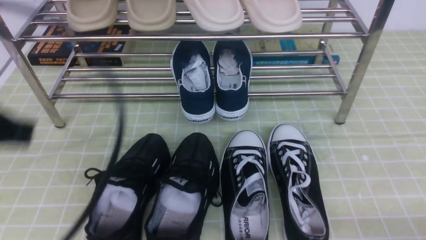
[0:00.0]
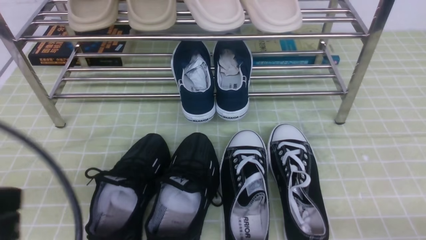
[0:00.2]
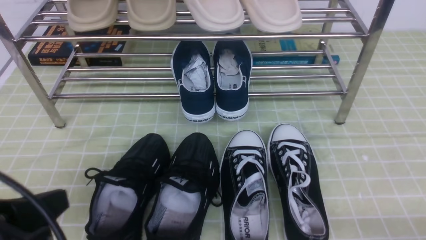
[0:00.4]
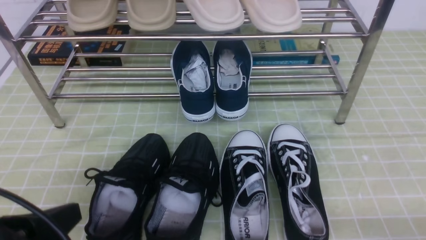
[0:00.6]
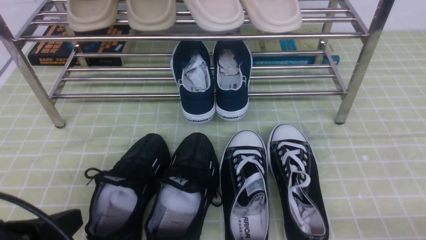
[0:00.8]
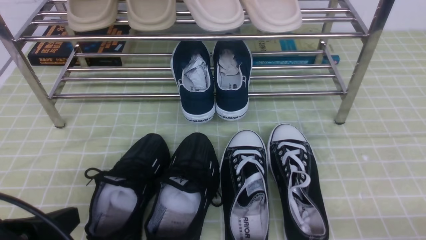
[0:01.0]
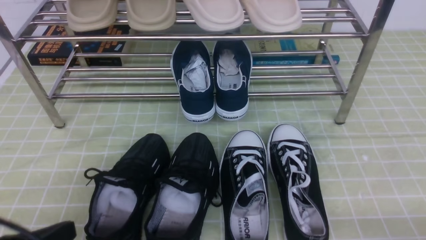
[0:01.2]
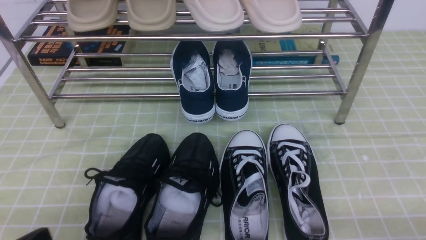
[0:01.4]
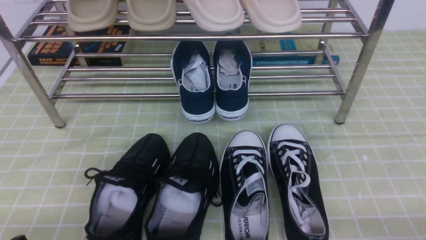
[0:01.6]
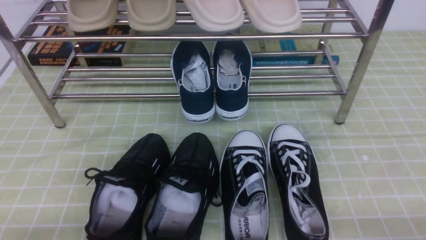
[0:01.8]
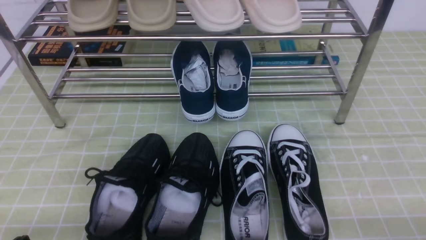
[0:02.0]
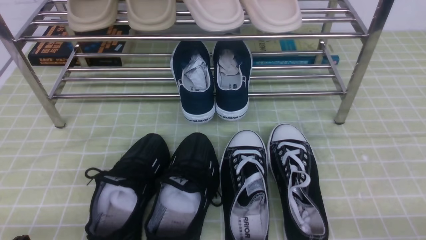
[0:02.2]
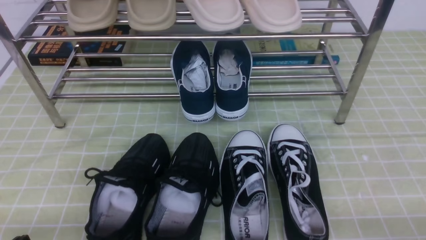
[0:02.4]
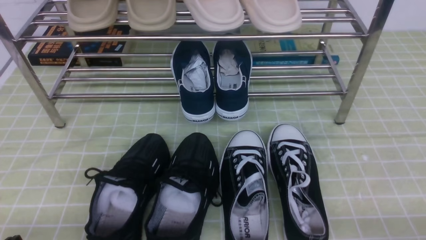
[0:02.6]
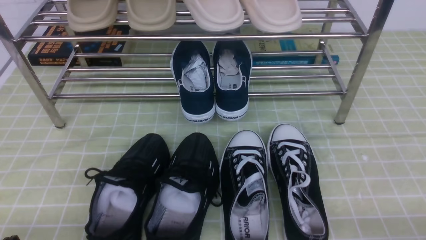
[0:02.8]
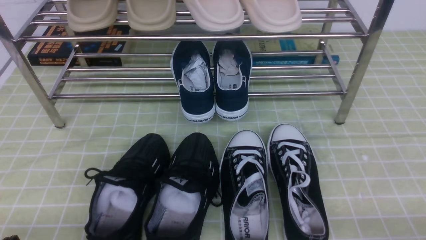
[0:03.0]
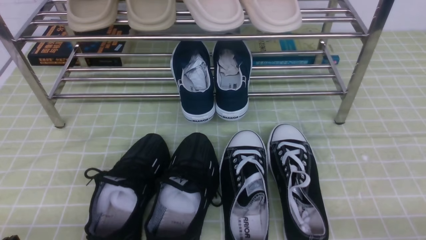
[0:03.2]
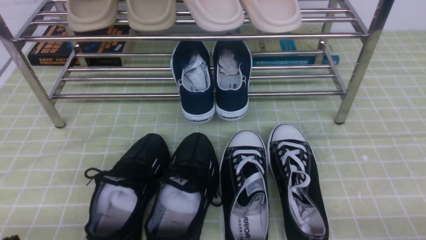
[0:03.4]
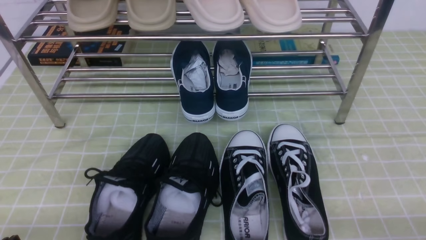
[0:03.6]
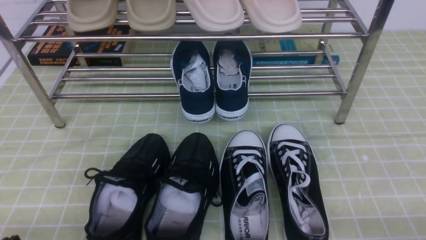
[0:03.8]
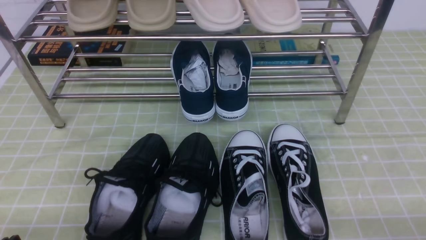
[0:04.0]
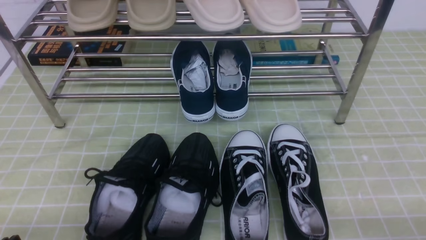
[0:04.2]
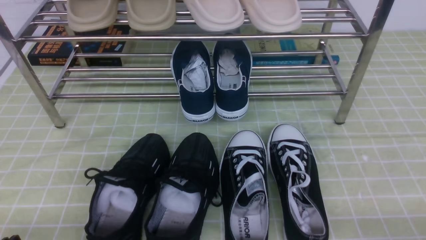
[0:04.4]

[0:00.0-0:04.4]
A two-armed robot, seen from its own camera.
0:00.0 to 0:01.4: The left gripper is displaced downward by about 20 cm.
0:03.0 to 0:04.4: The two grippers keep their place.

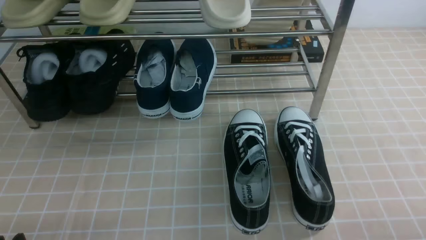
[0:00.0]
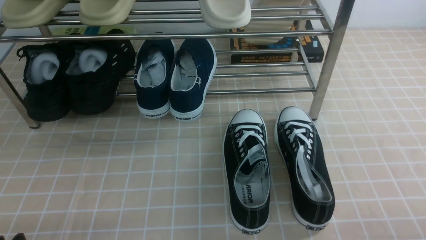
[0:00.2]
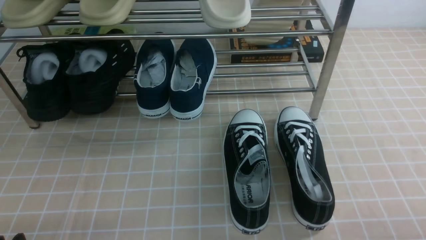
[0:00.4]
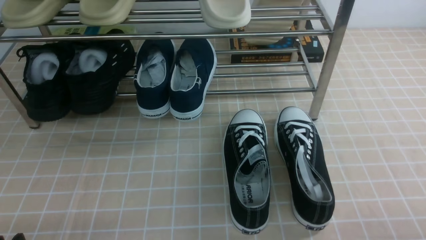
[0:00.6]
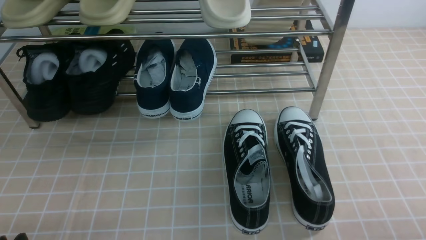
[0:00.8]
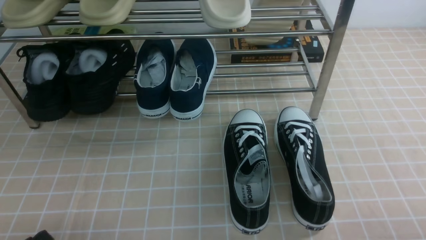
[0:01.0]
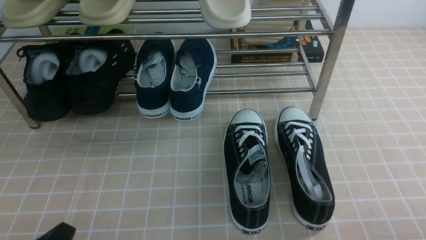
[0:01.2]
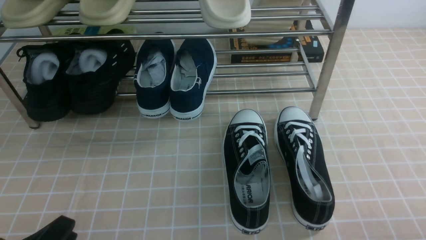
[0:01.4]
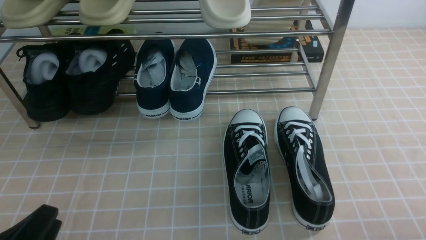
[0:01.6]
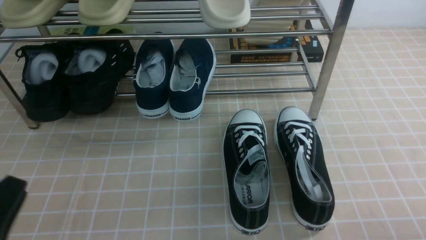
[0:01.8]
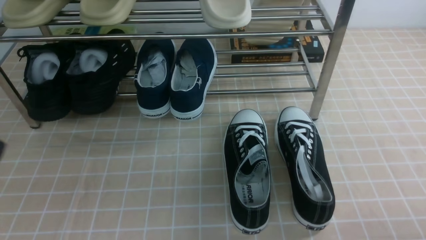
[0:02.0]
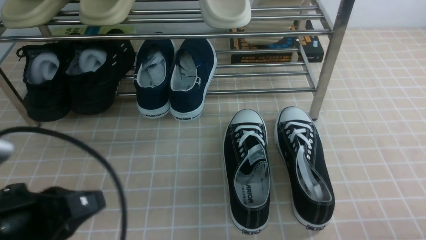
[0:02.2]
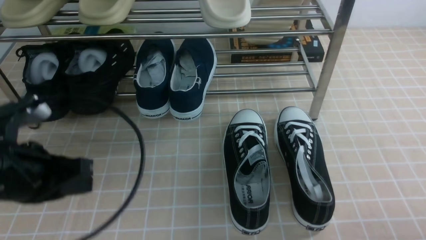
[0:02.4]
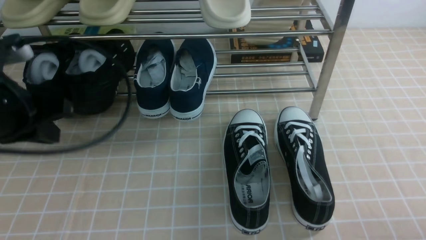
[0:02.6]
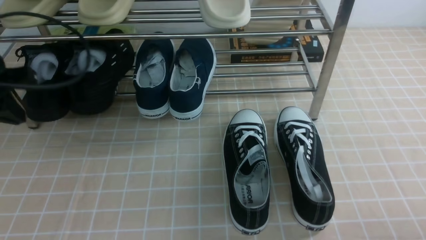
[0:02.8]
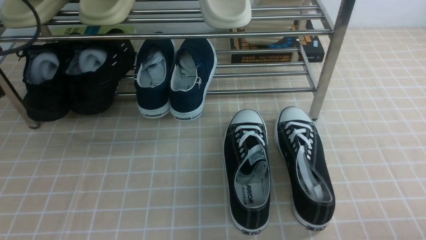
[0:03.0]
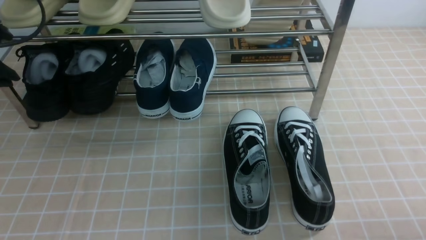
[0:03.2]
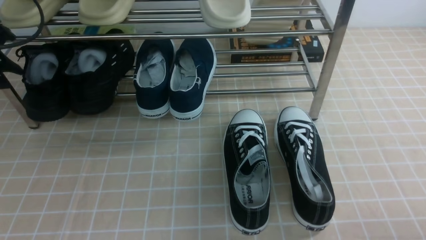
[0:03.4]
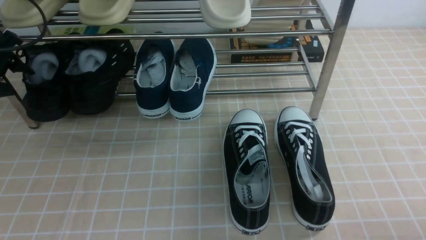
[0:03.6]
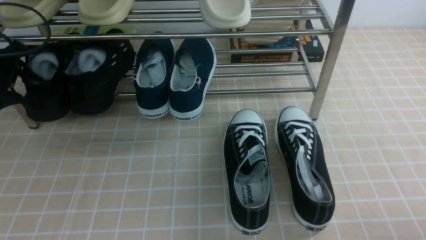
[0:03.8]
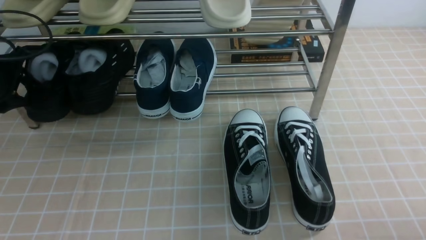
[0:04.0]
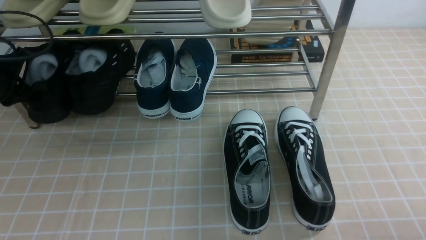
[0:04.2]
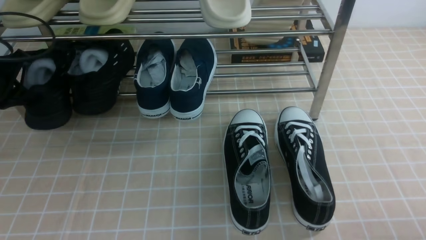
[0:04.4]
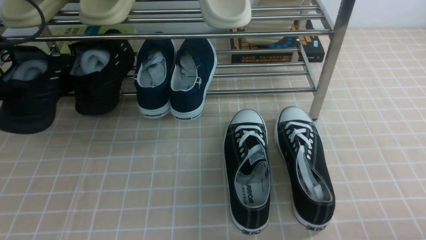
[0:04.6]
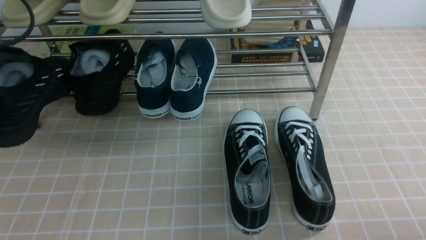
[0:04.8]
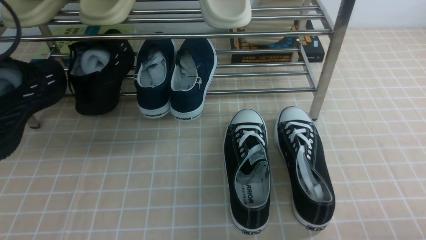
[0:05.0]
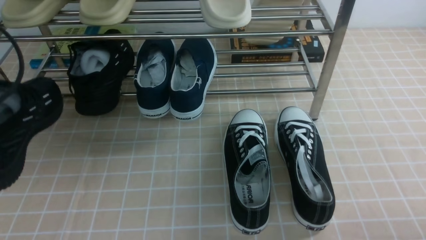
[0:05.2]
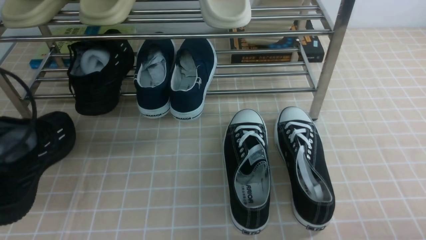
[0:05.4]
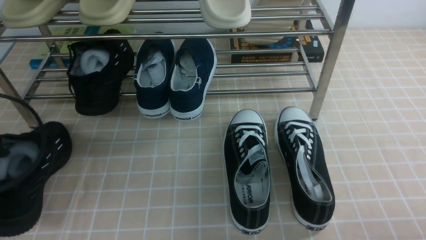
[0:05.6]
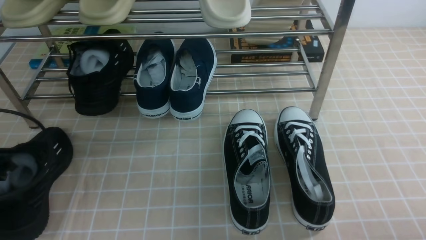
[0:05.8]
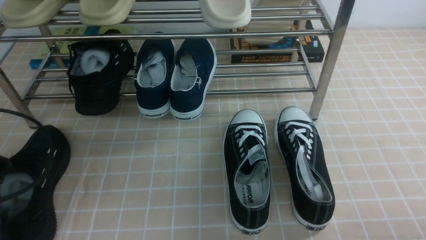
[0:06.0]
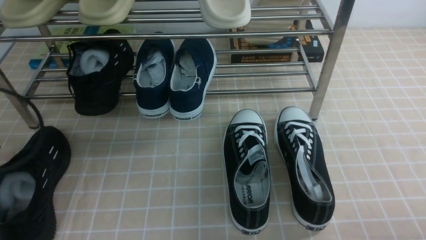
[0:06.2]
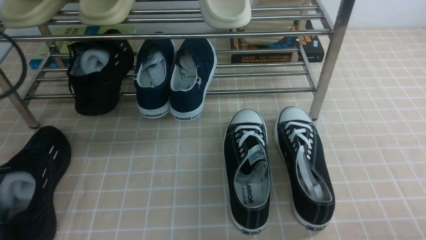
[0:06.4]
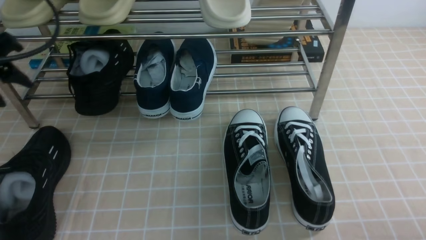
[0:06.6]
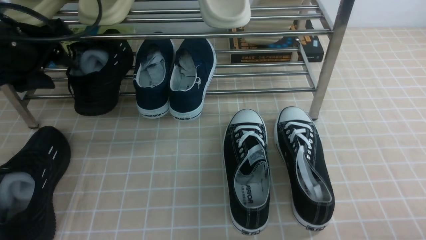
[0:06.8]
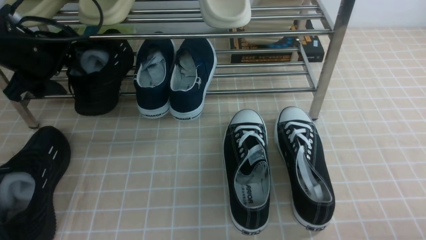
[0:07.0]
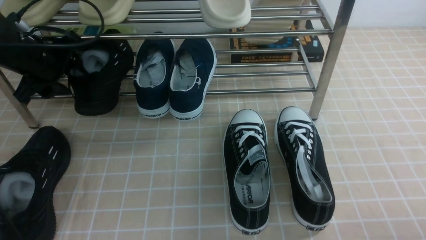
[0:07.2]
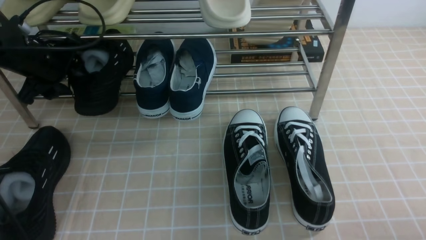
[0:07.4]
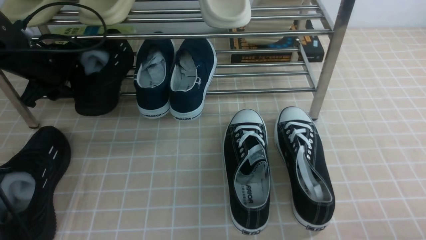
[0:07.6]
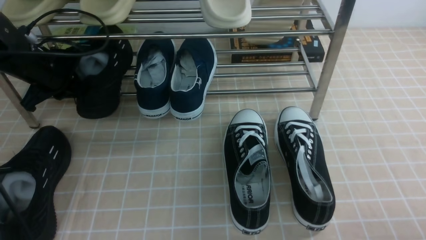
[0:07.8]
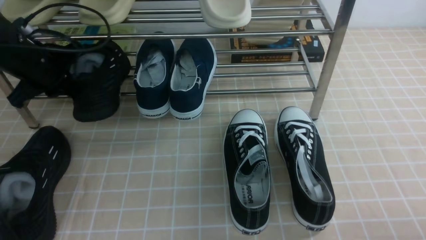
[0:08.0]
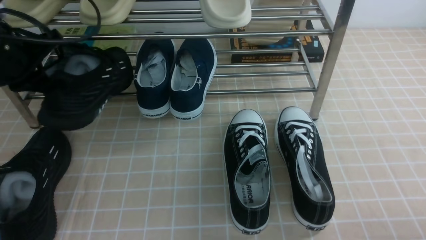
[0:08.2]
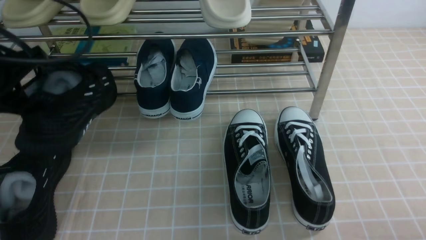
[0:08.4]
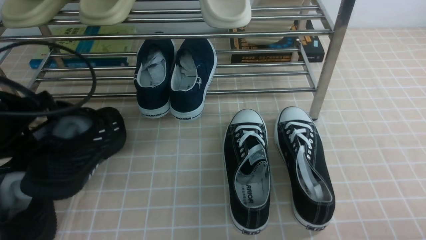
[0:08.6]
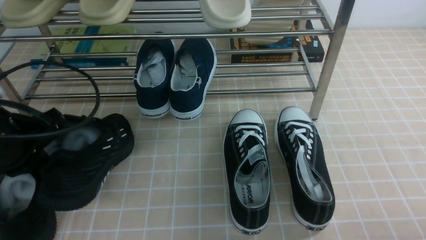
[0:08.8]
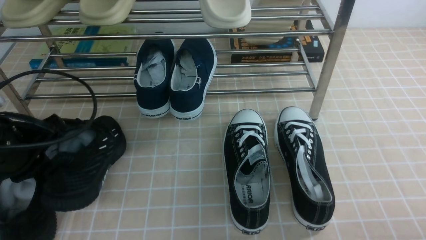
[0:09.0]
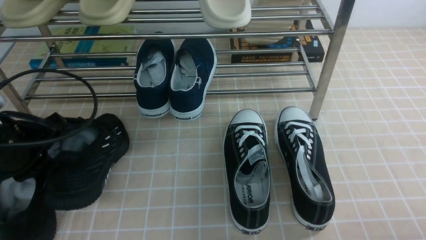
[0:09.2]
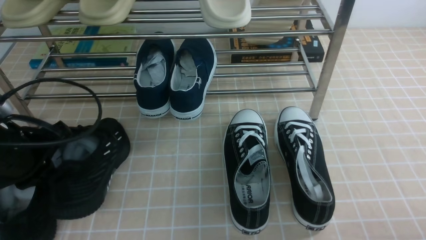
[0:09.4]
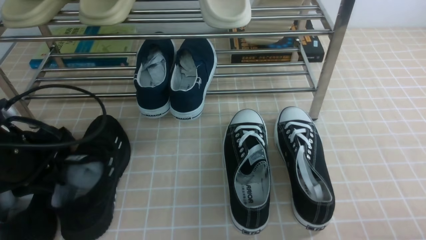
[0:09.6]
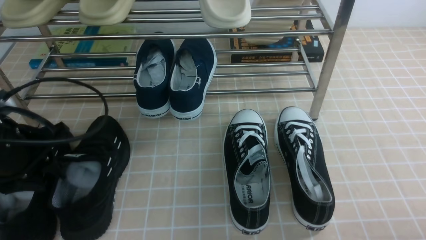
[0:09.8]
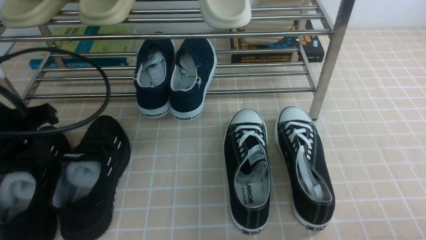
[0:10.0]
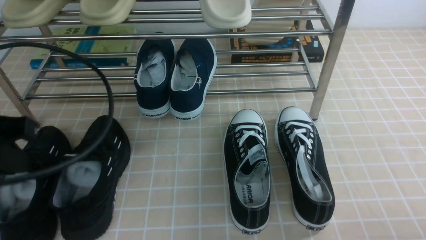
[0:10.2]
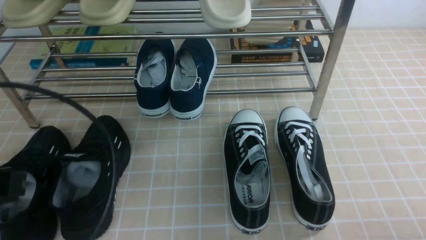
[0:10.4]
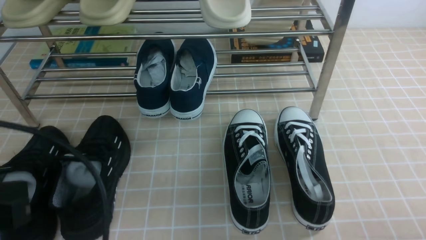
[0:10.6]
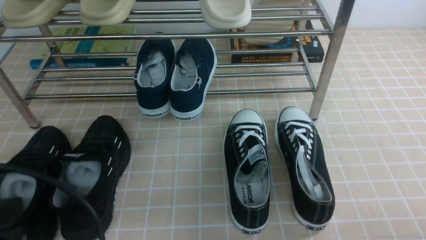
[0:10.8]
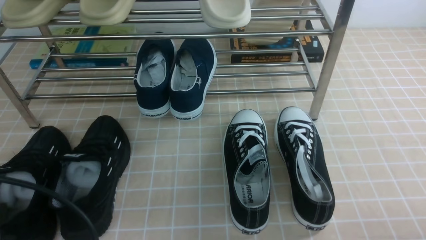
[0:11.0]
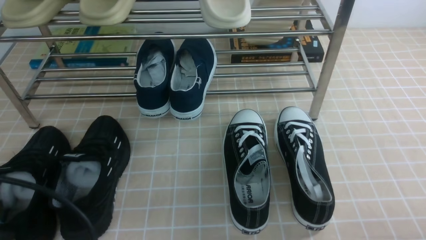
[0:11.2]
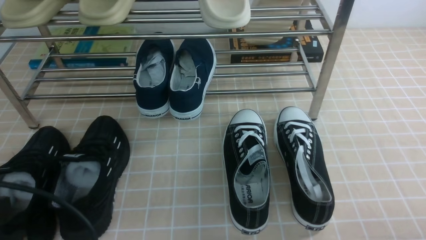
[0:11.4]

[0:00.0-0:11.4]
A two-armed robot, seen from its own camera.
Step, 0:00.0 to 0:04.4: use the left arm to clamp a shoe on the left side of the shoe rack.
Step, 0:04.6 to 0:06.0: Use your left arm to remove the clamped shoe from the shoe rack and put it down.
Step, 0:06.2 to 0:08.0: use the left arm to clamp a shoe on the left side of the shoe rack.
Step, 0:08.2 to 0:09.6: Use your left arm to remove the clamped shoe from the shoe rack and put it down.
0:01.4 to 0:02.8: The left gripper moves forward and upward, roughly 25 cm, and closes up.
0:02.8 to 0:04.2: The left gripper travels forward, downward and to the left by about 15 cm, and opens, then closes again.
0:04.2 to 0:05.6: The left gripper goes some 20 cm backward.
0:05.6 to 0:07.2: The left gripper is displaced forward by roughly 20 cm, and opens its fingers.
0:07.2 to 0:08.6: The left gripper is displaced backward by roughly 15 cm, and closes up.
0:08.6 to 0:10.0: The left gripper opens up.
0:10.0 to 0:11.4: The left gripper travels backward by about 15 cm, and closes.

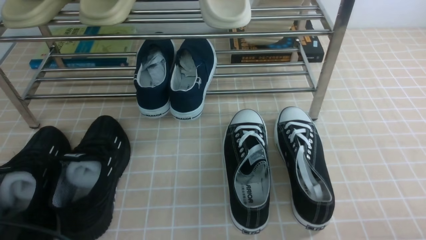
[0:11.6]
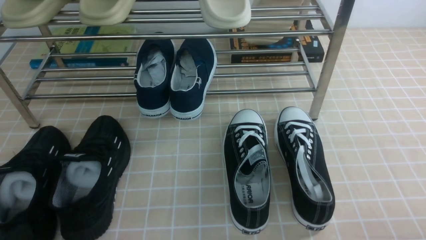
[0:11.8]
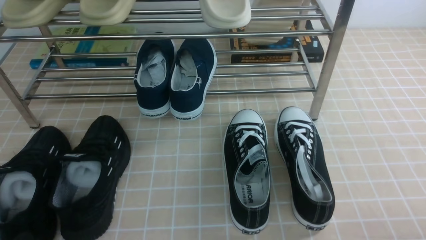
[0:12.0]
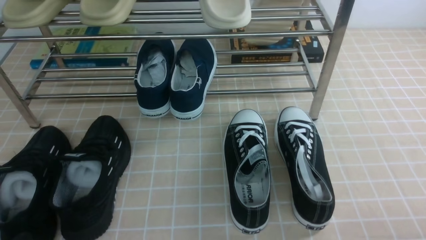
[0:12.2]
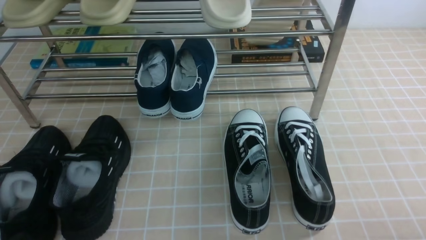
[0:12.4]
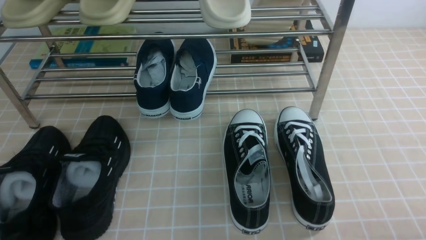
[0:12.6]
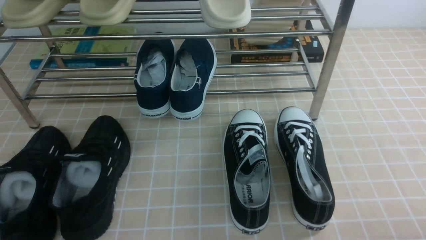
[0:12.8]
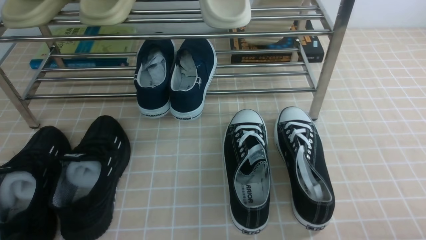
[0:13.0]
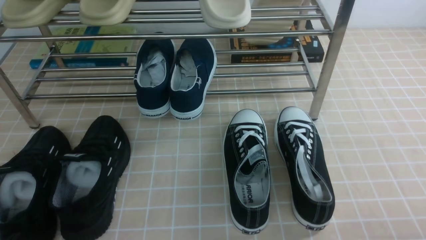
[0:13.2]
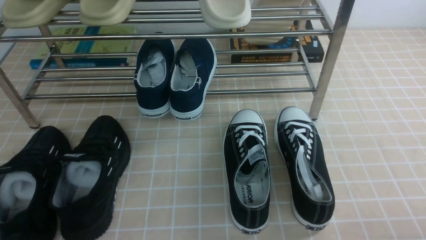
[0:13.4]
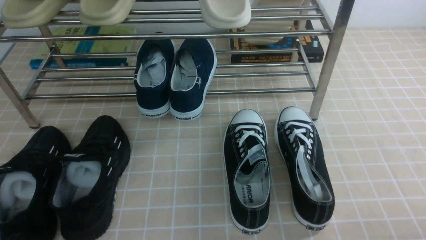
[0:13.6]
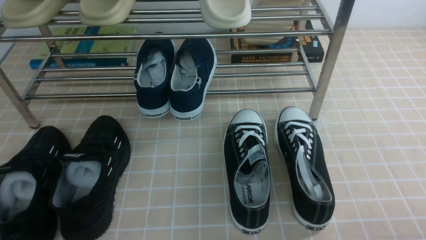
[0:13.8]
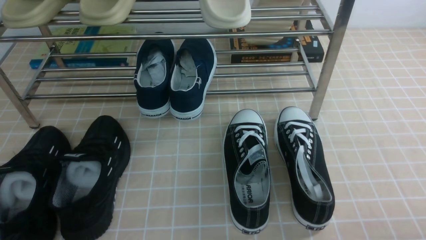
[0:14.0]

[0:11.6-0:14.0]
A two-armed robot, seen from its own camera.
0:12.8 to 0:14.0: Both grippers stay put.
